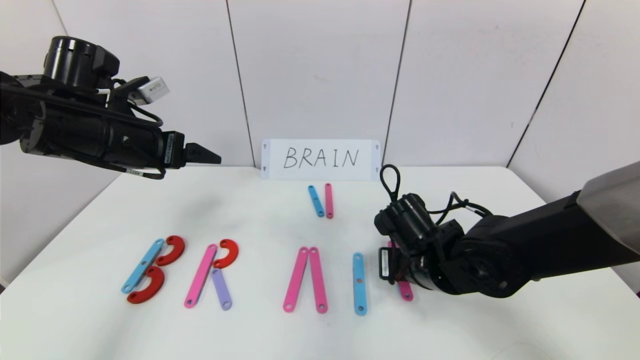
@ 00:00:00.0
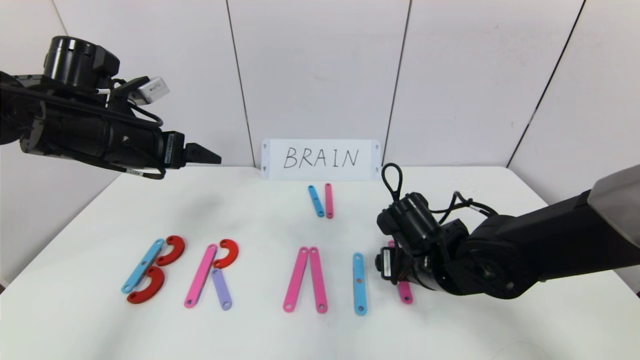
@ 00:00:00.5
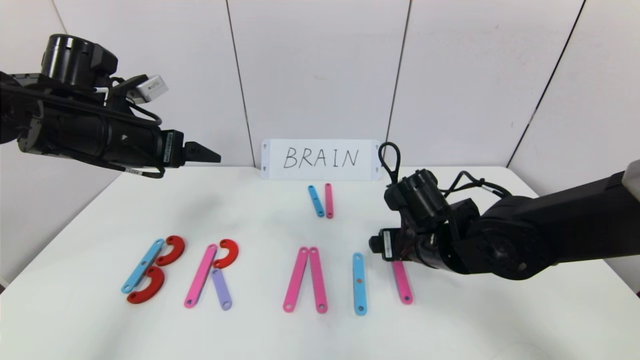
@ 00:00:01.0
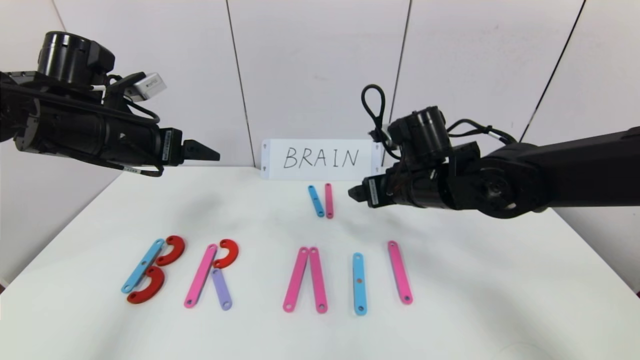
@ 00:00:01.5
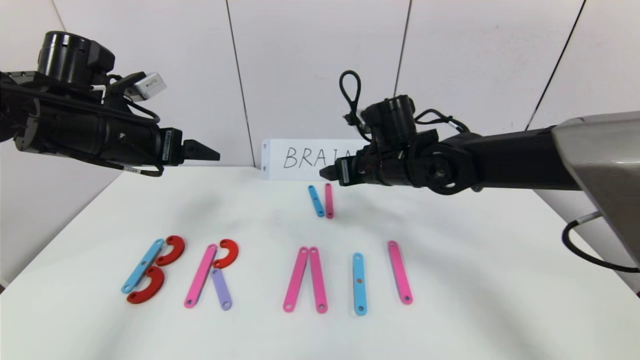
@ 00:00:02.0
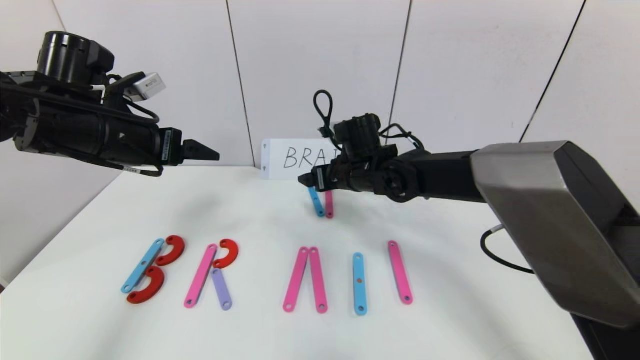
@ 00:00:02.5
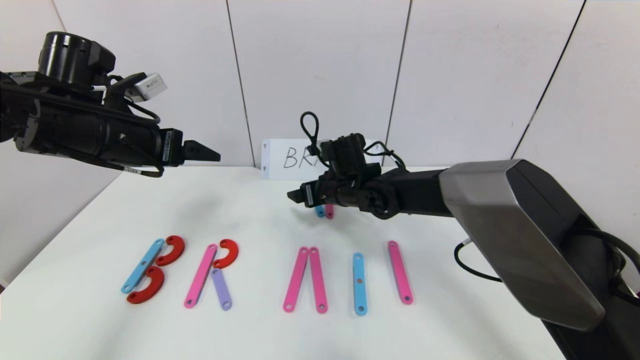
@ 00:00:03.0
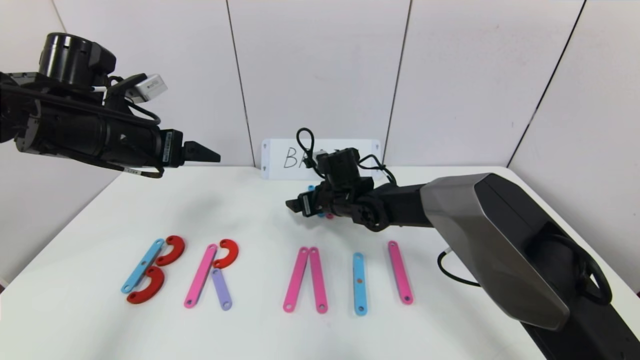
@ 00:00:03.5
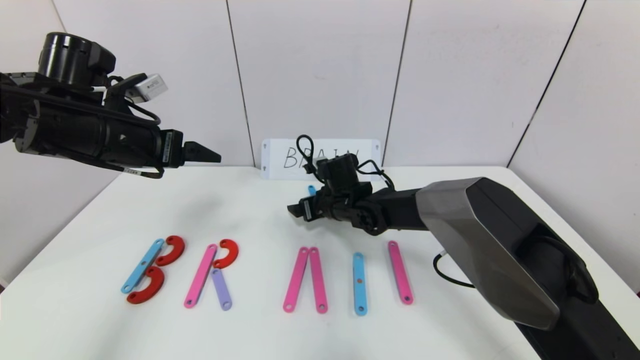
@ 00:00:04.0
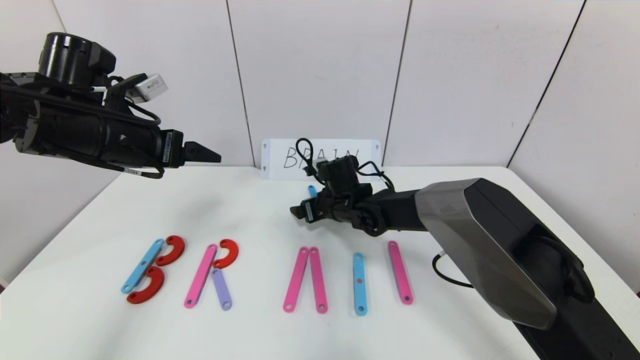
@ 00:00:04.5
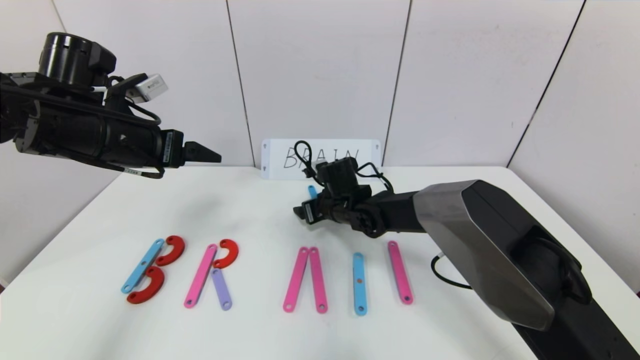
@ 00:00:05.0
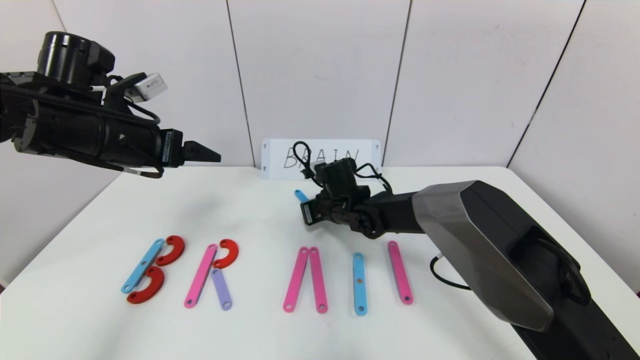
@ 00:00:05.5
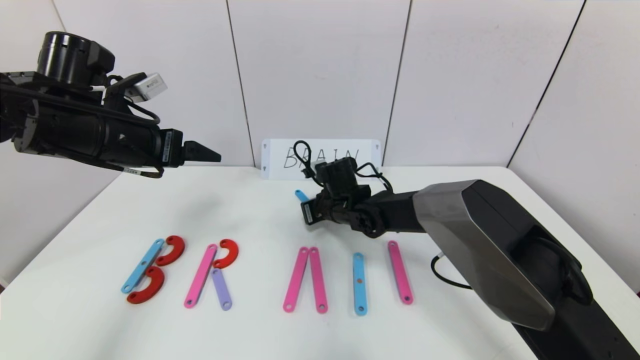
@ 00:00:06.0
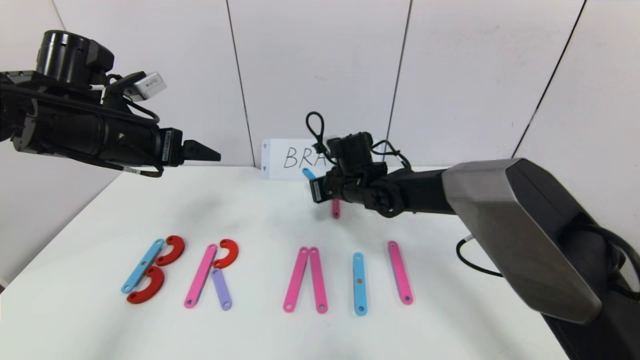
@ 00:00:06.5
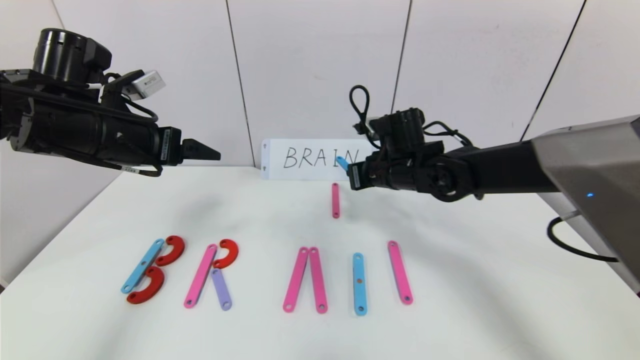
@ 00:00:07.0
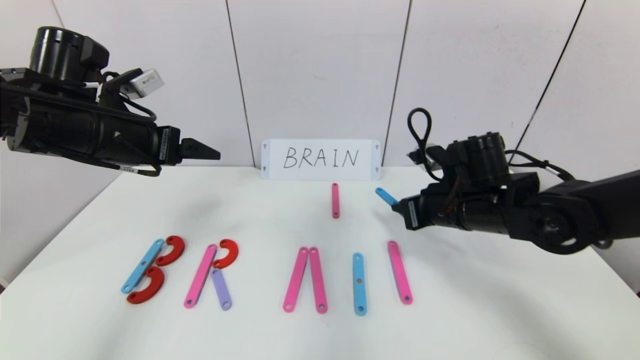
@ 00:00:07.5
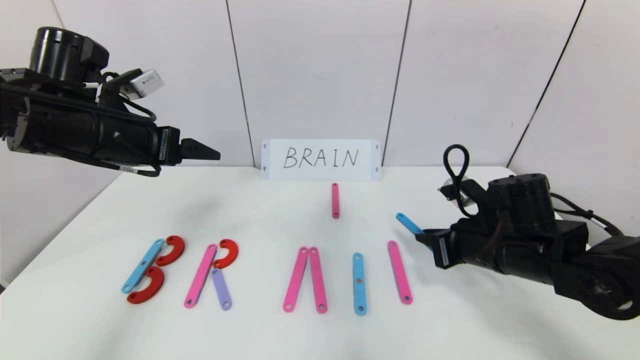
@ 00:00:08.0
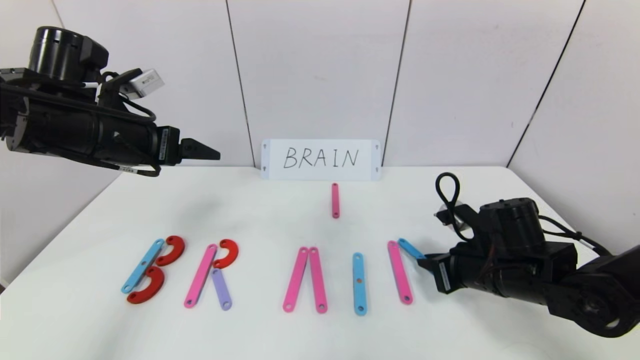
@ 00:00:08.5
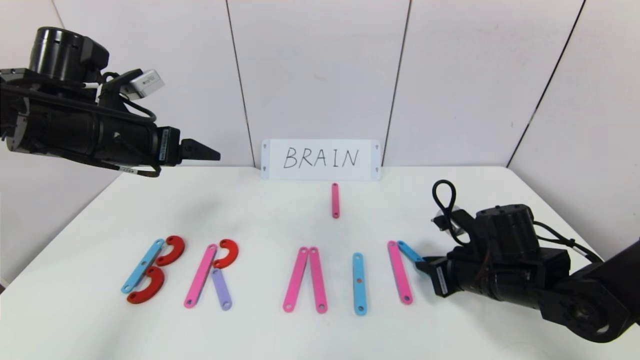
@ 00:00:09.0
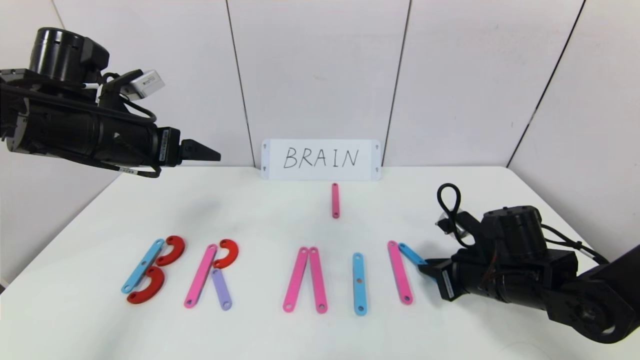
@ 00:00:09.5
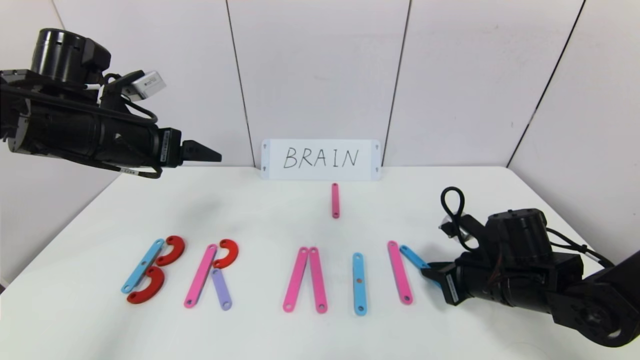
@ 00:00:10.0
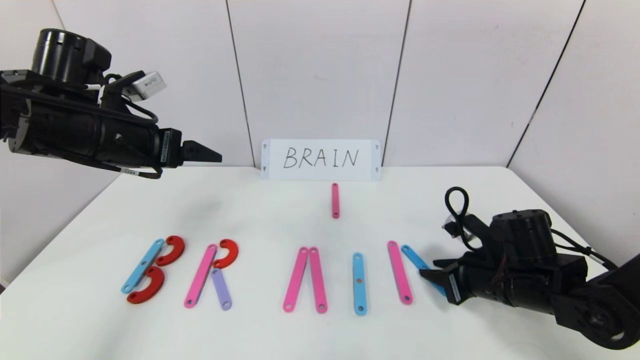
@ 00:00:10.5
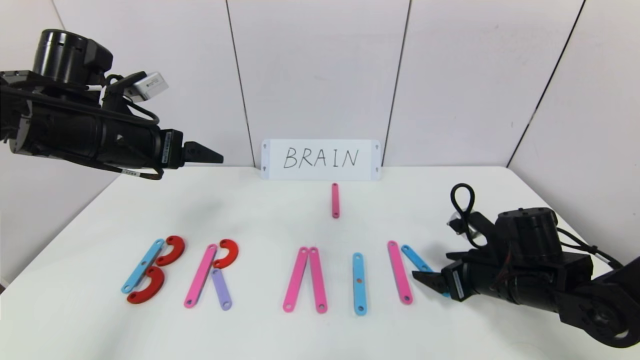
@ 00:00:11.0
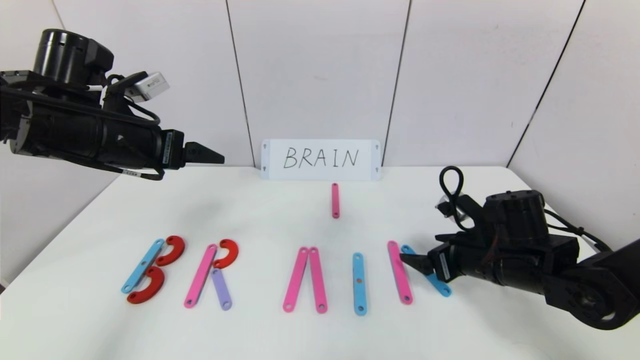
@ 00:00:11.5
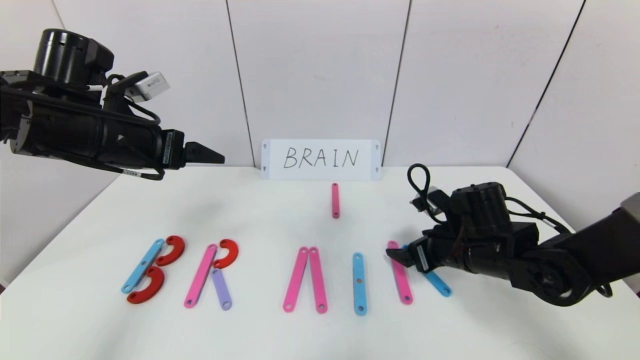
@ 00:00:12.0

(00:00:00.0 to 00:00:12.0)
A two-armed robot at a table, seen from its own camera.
Task of the whole recording: rearrange the word baai as brain.
00:00:00.0 - 00:00:02.0: The right gripper moves forward and upward, some 15 cm, and opens.
00:00:02.0 - 00:00:04.0: The right gripper shifts some 15 cm downward and to the left.
00:00:04.0 - 00:00:06.0: The right gripper closes up.
00:00:06.0 - 00:00:08.0: The right gripper is displaced to the right and backward by approximately 25 cm.
00:00:08.0 - 00:00:10.0: The right gripper moves downward, approximately 5 cm.
00:00:10.0 - 00:00:12.0: The right gripper shifts by roughly 5 cm, and opens its fingers.

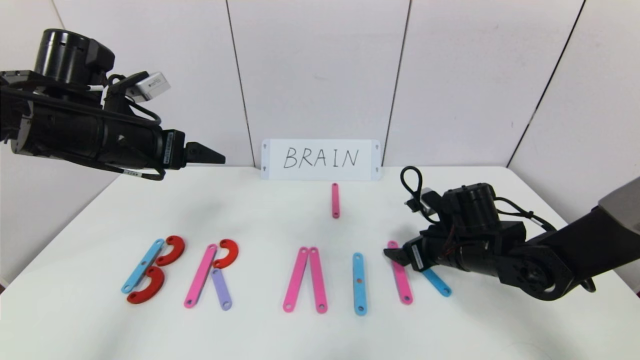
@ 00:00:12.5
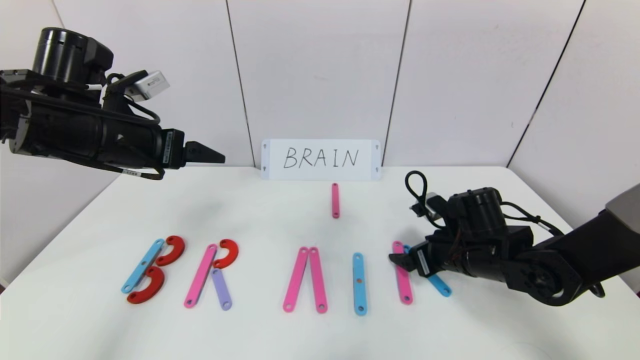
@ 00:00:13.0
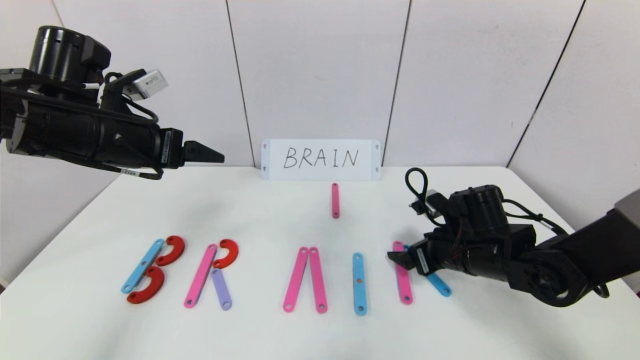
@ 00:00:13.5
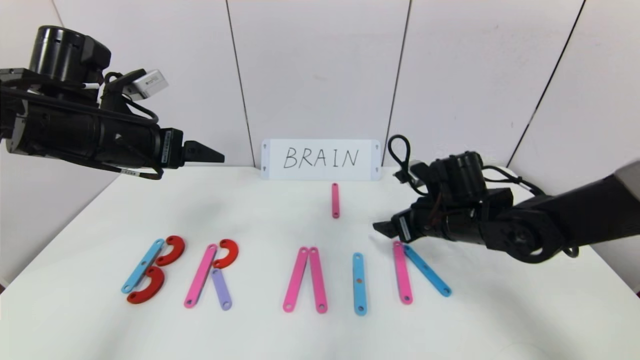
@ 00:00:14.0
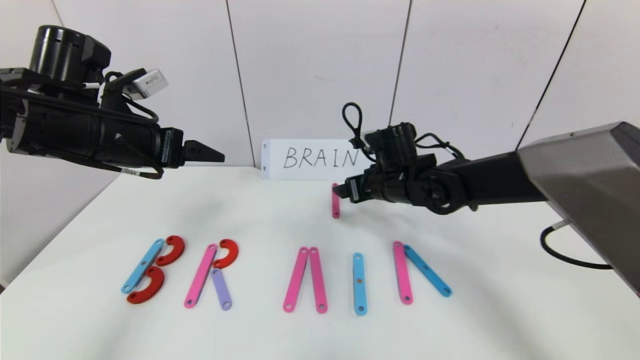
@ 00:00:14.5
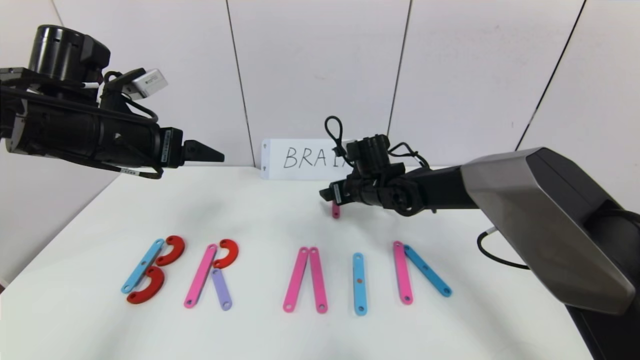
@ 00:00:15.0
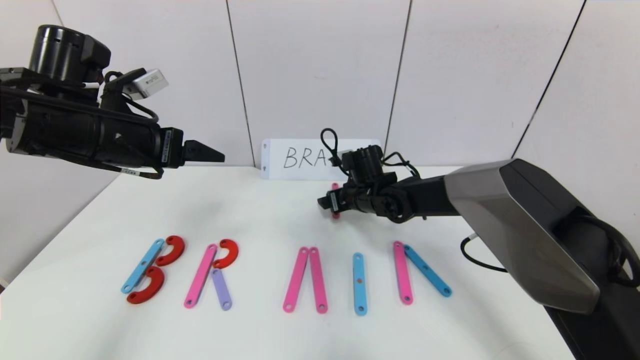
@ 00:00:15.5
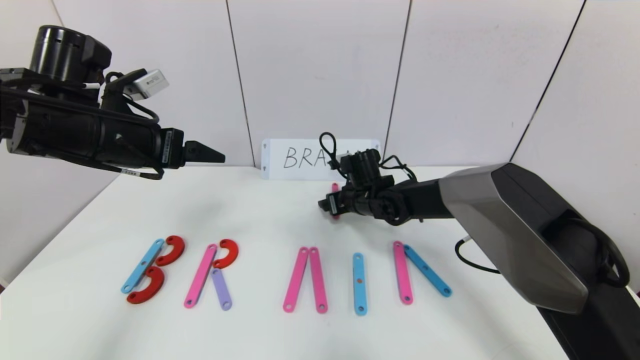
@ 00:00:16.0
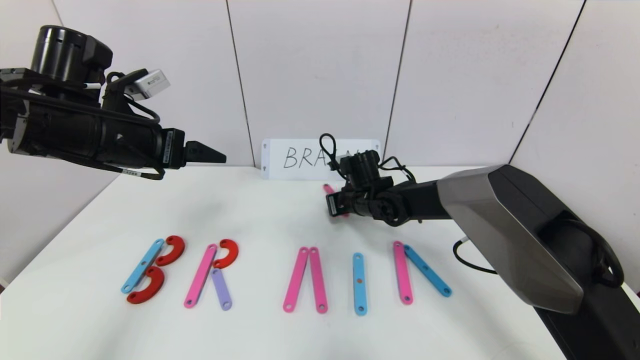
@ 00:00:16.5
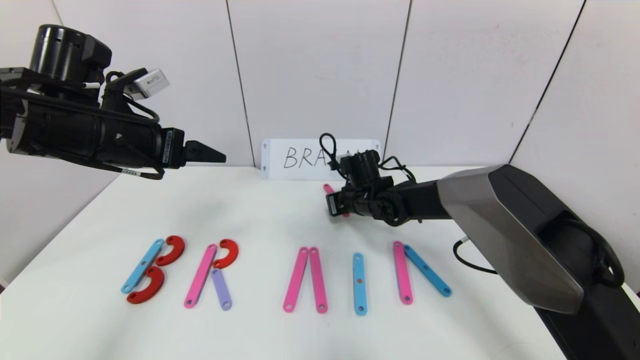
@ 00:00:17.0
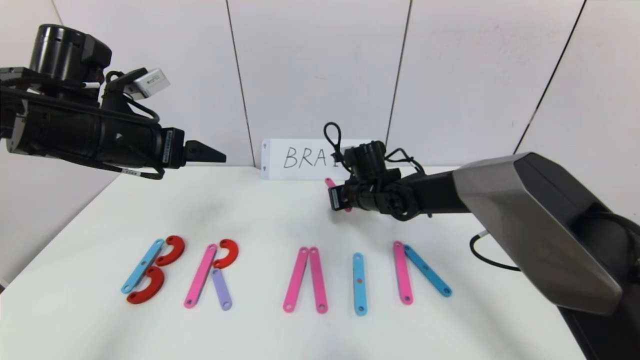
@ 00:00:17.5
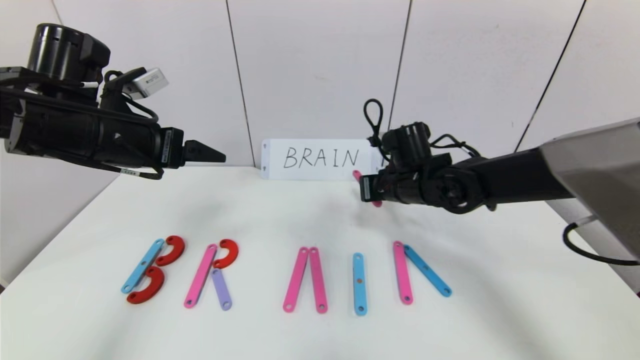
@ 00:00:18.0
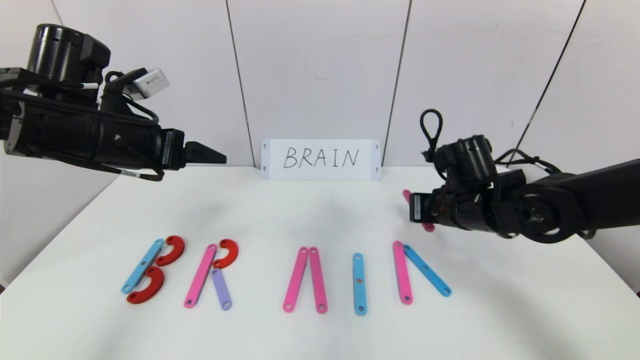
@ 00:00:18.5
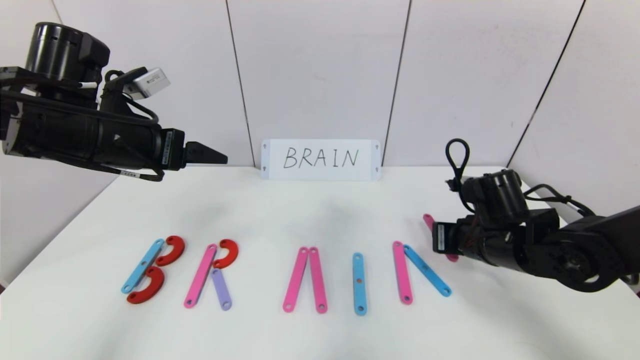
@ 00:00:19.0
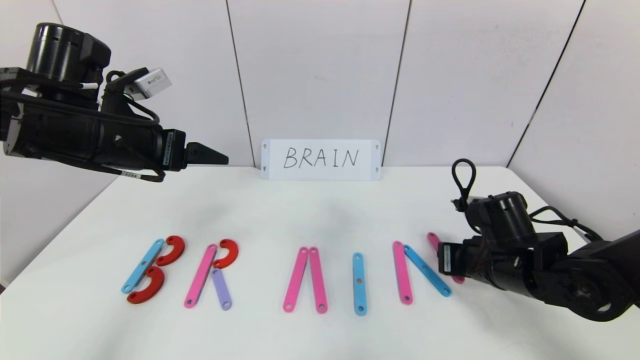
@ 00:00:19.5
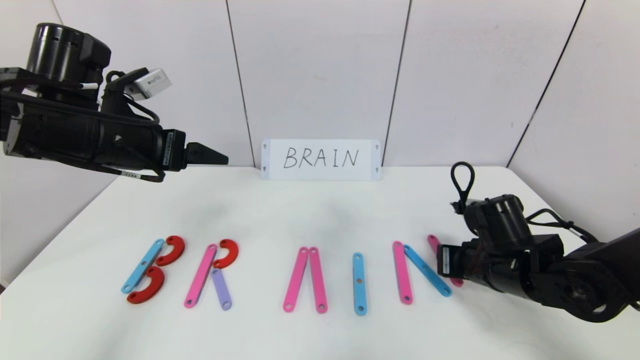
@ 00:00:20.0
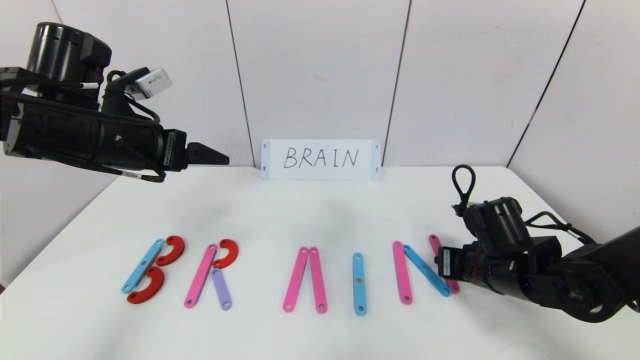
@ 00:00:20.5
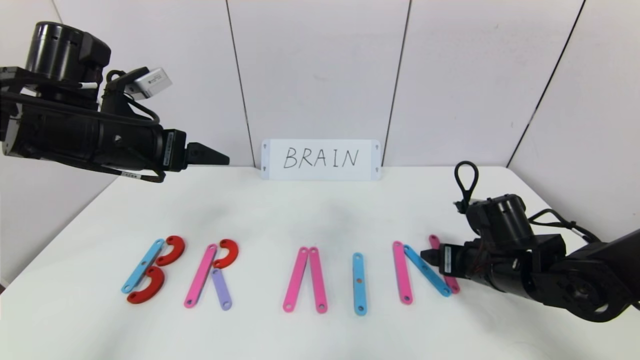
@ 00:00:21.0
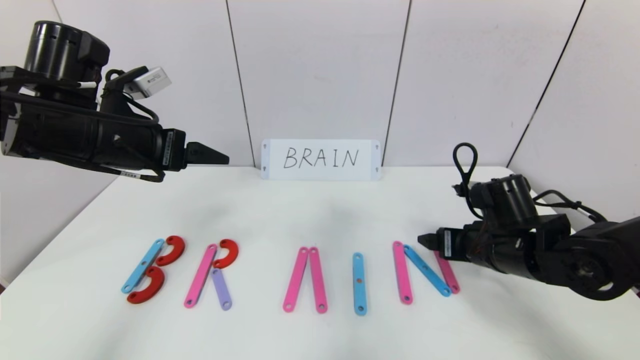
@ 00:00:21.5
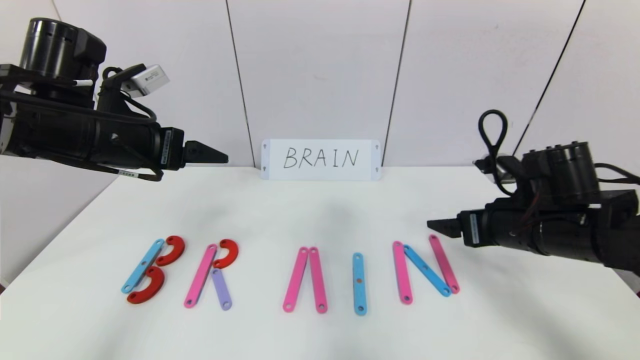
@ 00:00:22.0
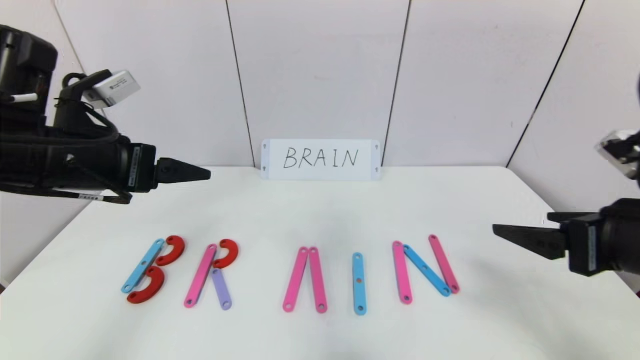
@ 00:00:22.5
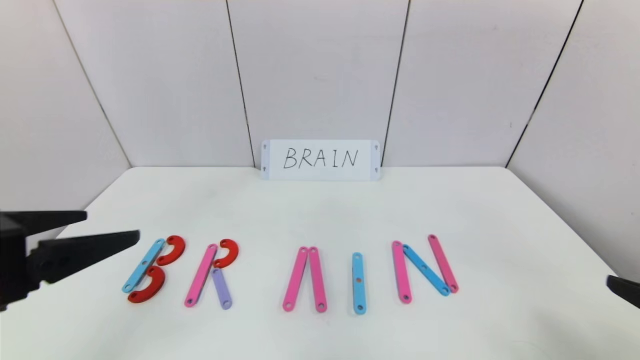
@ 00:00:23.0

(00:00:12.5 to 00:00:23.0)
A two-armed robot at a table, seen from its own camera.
Task of the whole recording: rearrange the word baai as brain.
Step, 00:00:12.5 - 00:00:21.0: Place the character N after character I.
00:00:12.5 - 00:00:14.5: The right gripper moves to the left, forward and upward, roughly 15 cm.
00:00:14.5 - 00:00:16.5: The right gripper goes some 5 cm downward, and closes up.
00:00:16.5 - 00:00:19.0: The right gripper shifts roughly 20 cm to the right and backward.
00:00:19.0 - 00:00:21.0: The right gripper opens.
00:00:21.0 - 00:00:23.0: The right gripper travels backward and upward by about 25 cm; the left gripper shifts some 20 cm backward.
